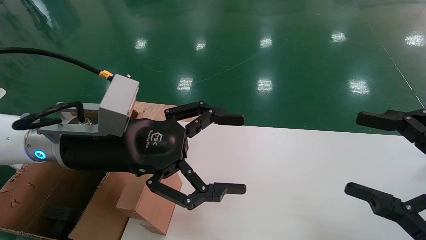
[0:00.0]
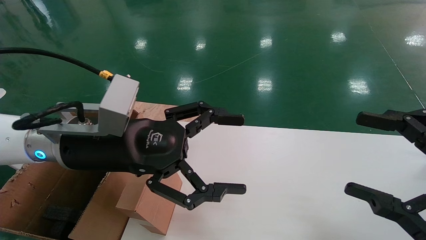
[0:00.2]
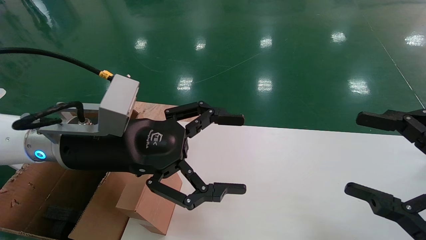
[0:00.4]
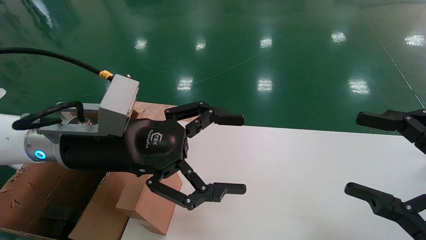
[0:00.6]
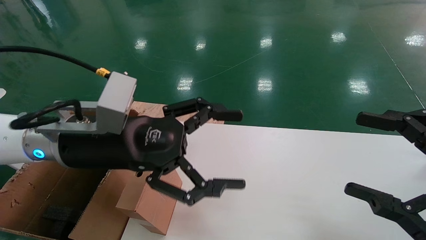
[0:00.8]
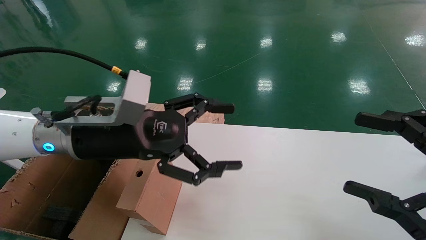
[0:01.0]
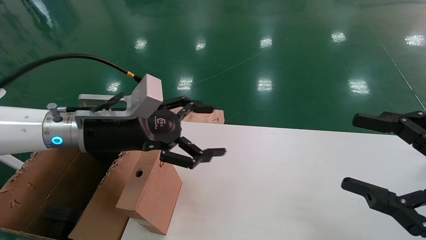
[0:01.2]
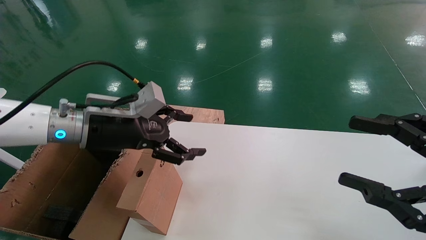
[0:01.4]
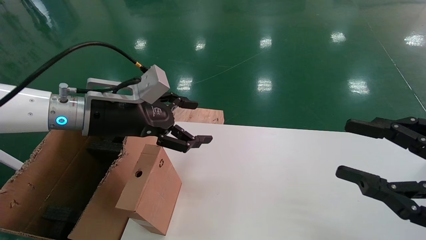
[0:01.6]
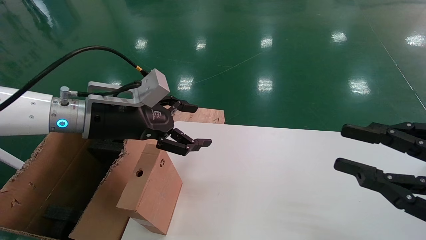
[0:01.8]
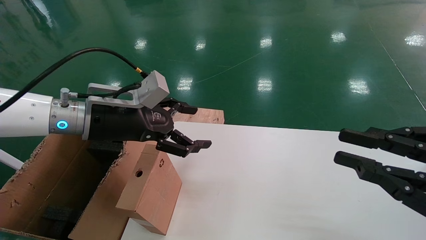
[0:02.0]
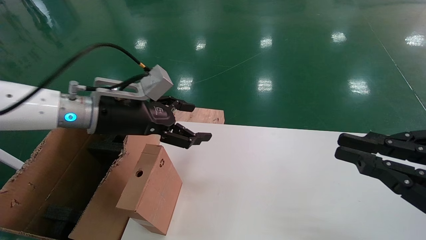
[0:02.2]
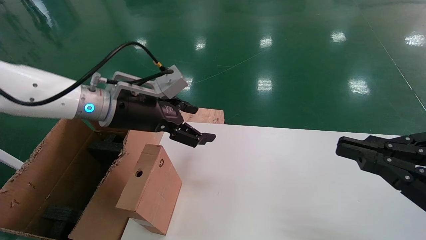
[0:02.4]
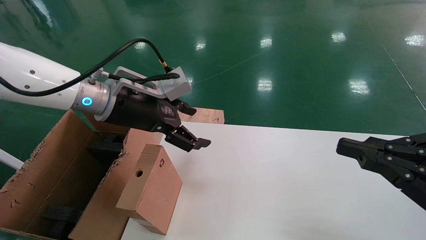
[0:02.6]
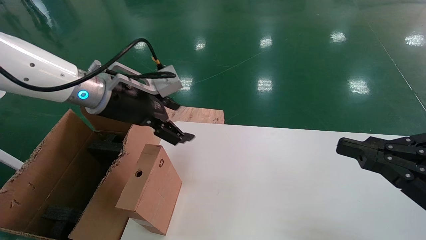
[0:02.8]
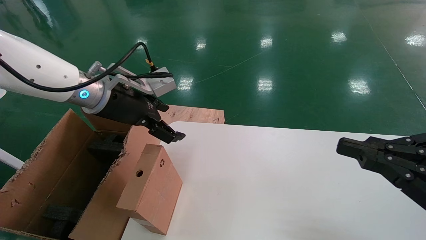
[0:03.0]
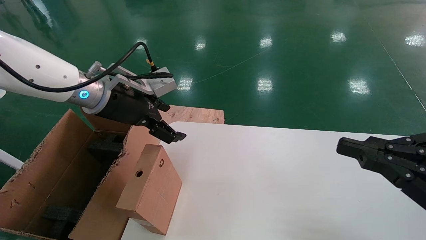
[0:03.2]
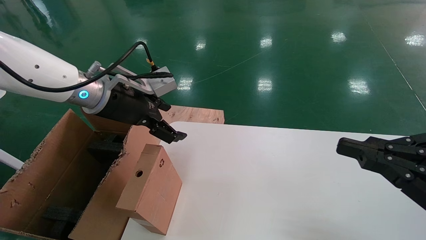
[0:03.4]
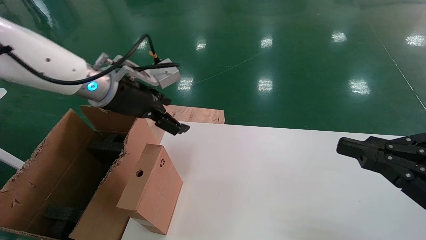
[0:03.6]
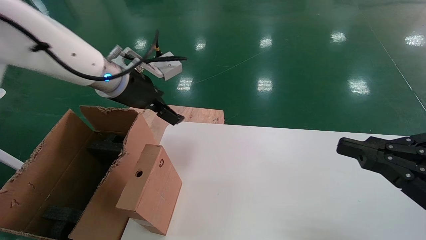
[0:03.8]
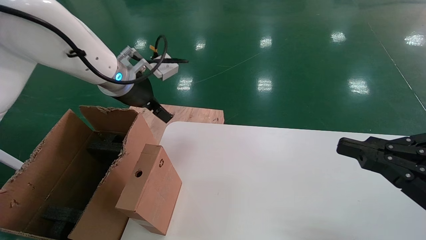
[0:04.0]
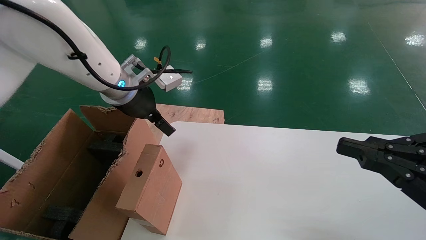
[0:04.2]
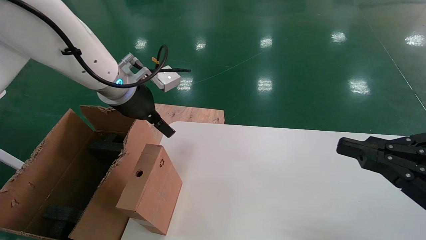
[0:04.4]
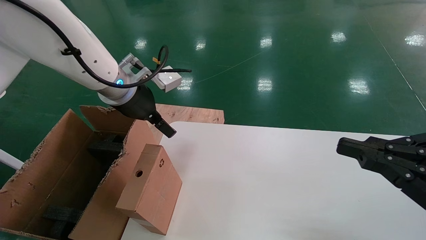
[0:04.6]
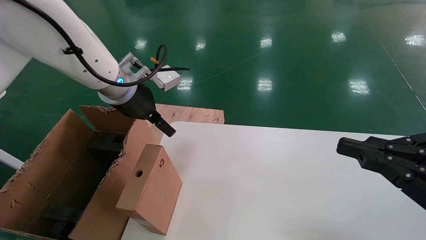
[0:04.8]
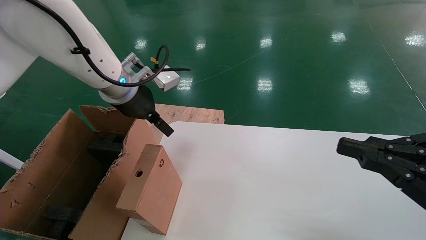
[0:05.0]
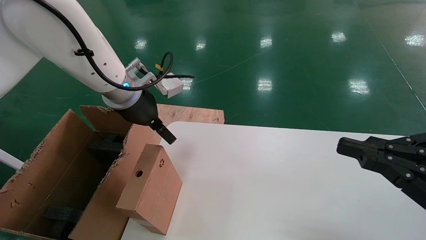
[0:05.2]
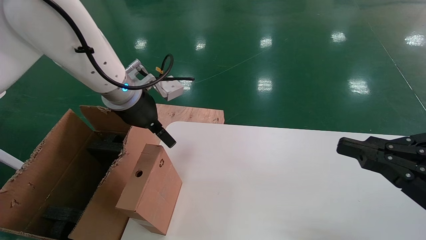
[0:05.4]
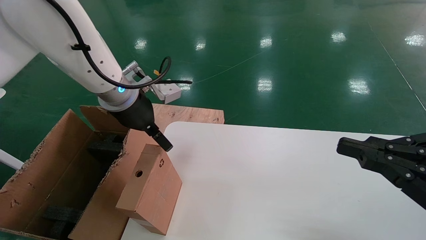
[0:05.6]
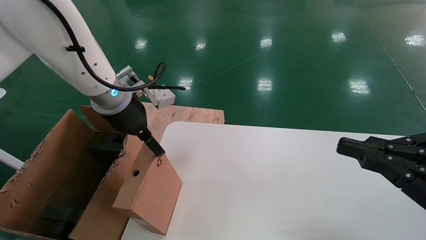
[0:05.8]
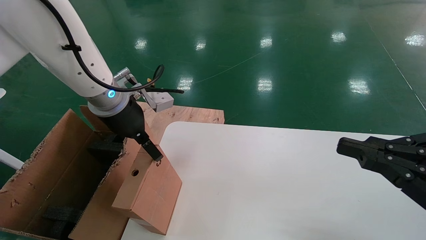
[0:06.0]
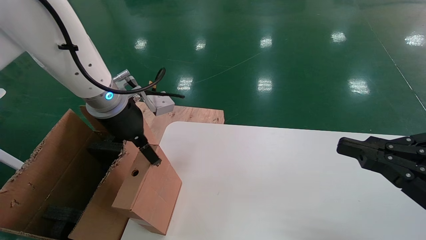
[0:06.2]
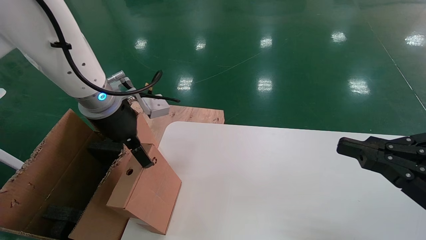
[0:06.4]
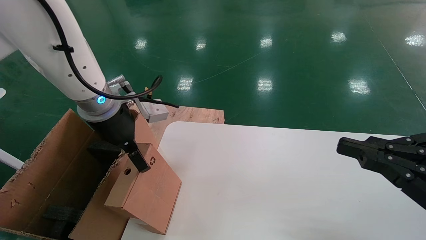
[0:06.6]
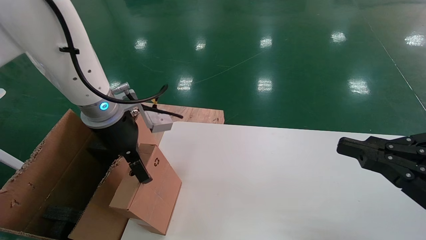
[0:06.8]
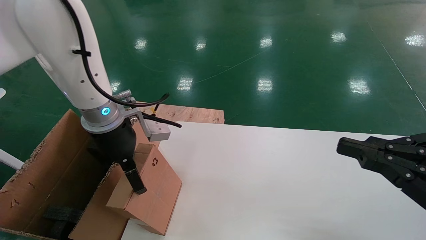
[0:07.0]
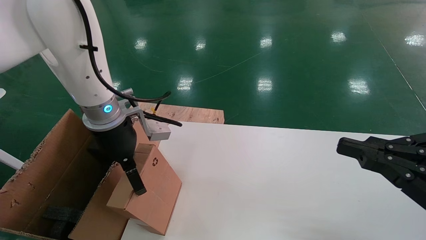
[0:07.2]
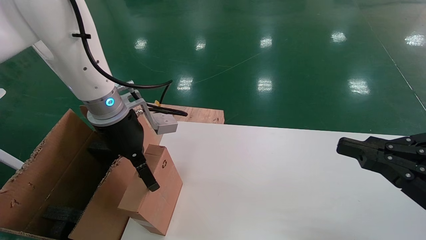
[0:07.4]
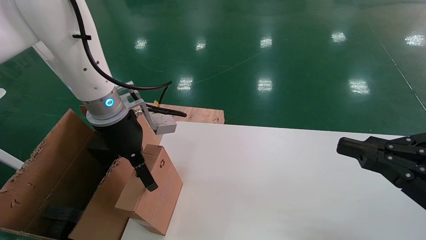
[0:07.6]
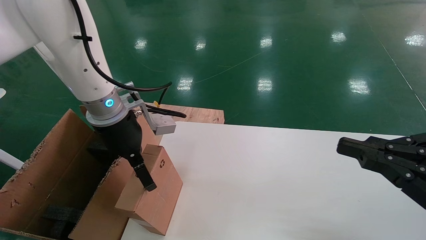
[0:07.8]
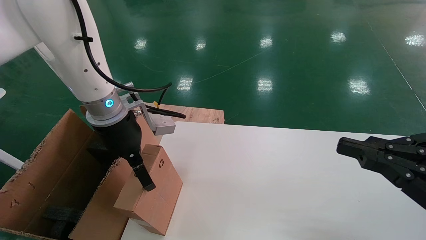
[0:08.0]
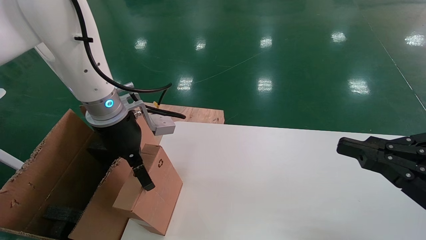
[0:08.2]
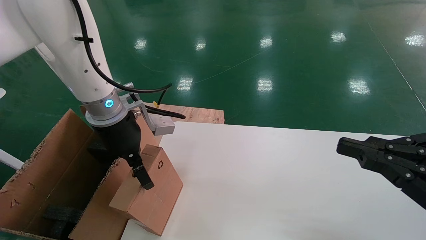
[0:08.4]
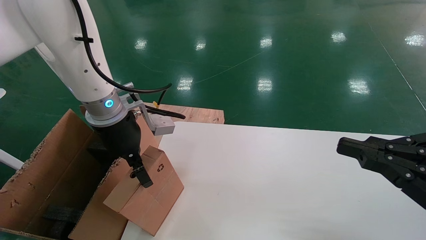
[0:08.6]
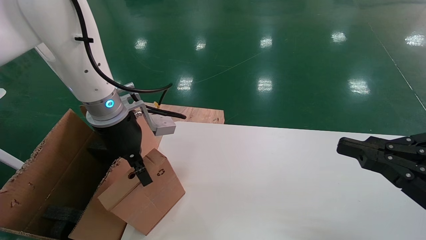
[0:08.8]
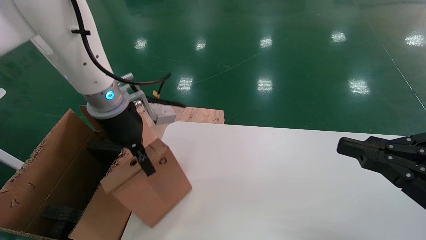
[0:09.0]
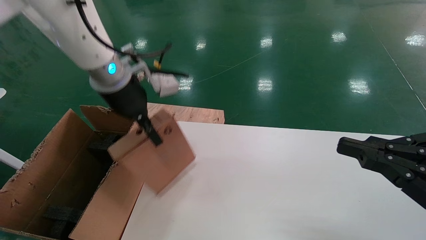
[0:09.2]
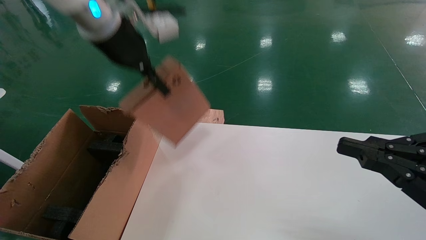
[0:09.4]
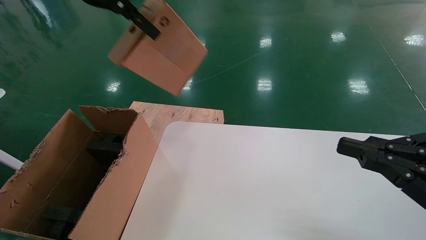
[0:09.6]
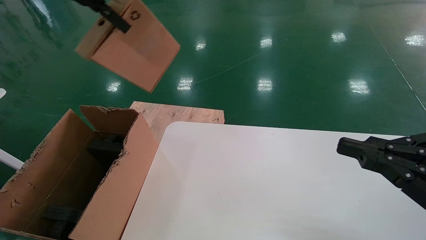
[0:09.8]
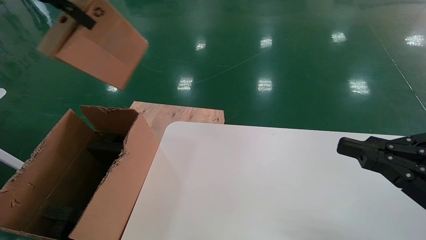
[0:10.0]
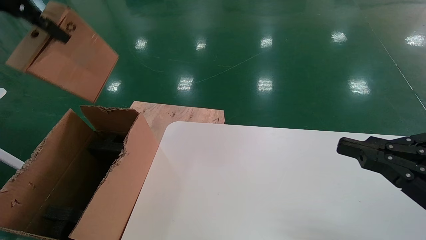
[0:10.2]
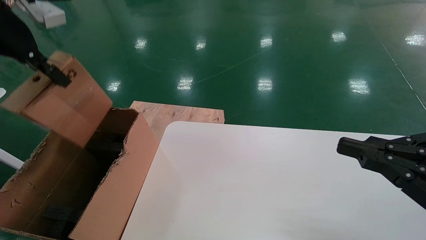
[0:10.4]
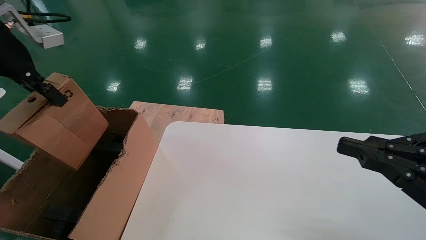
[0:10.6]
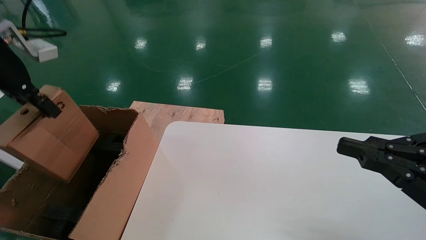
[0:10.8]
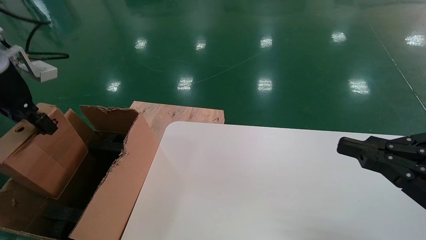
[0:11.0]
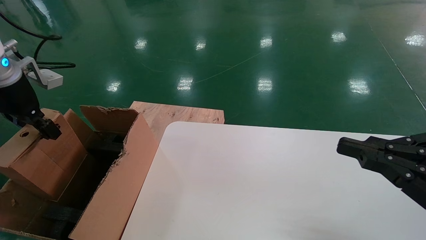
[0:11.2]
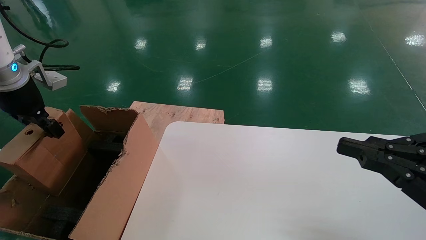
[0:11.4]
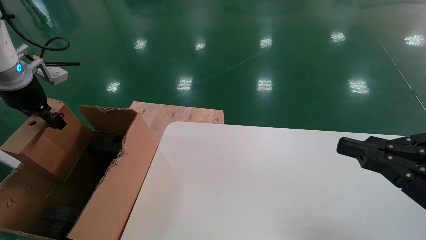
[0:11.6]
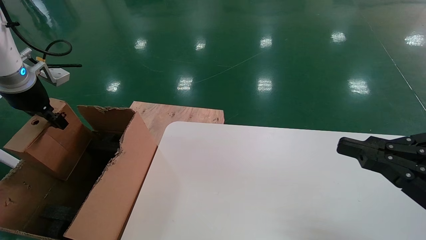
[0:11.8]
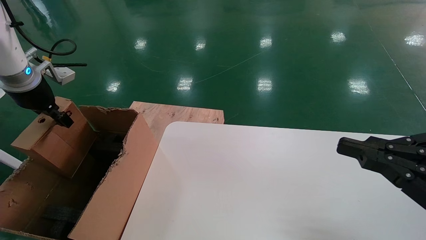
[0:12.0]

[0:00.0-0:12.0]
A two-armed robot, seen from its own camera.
Task of the whole recording: place the small box on the table into the large box on the left.
Step, 0:01.2 to 0:09.2: Pick up the mouse and the power cord paper box.
0:00.0 to 0:01.6: The left gripper heads forward, covering roughly 5 cm.
0:01.6 to 0:03.0: The right gripper closes.
0:04.4 to 0:06.0: The grippers stay close to where they were, moving slightly.
0:06.0 to 0:07.6: The grippers make only small movements.
0:07.6 to 0:09.0: The left gripper closes its fingers.
0:09.0 to 0:10.4: The left gripper heads to the left and upward, covering approximately 25 cm.
0:10.4 to 0:12.0: The left gripper moves downward, forward and to the left, about 15 cm.

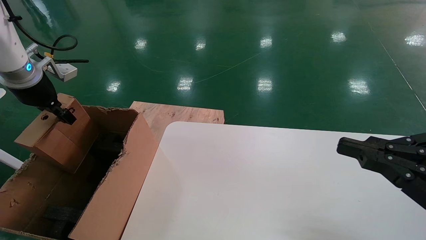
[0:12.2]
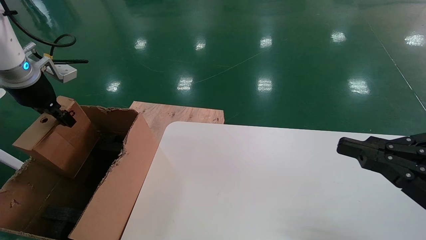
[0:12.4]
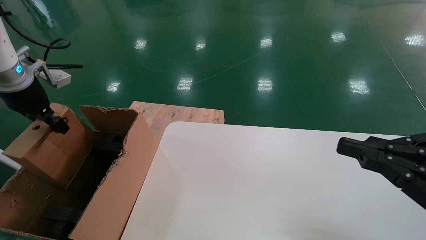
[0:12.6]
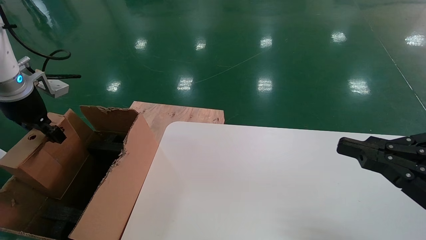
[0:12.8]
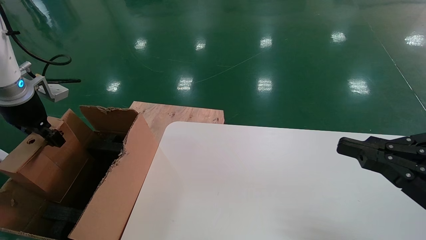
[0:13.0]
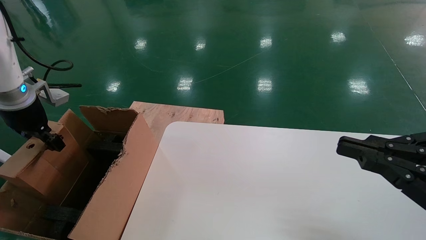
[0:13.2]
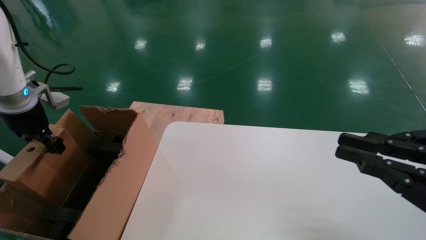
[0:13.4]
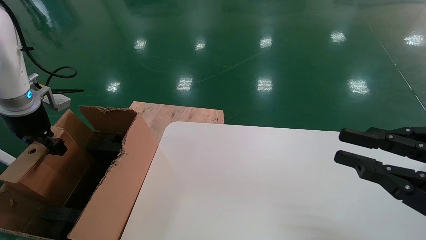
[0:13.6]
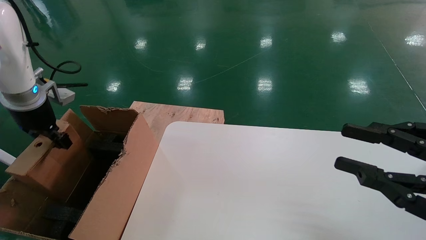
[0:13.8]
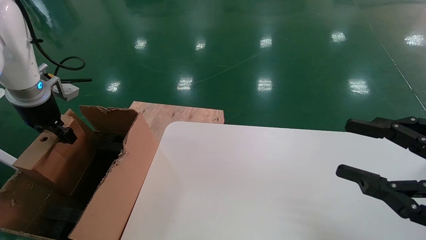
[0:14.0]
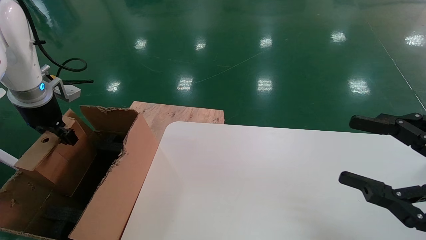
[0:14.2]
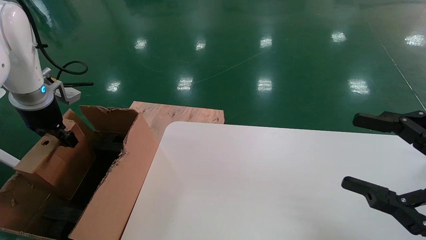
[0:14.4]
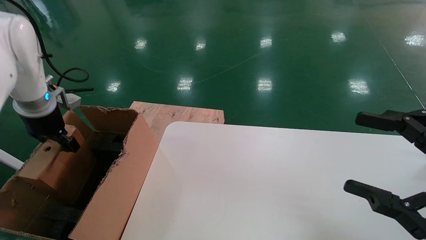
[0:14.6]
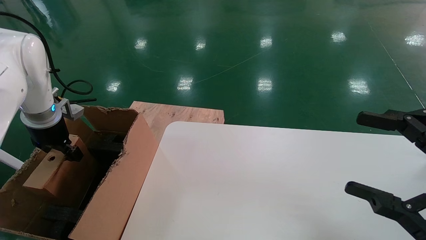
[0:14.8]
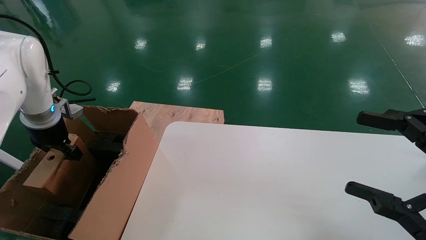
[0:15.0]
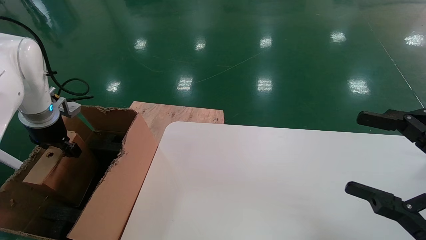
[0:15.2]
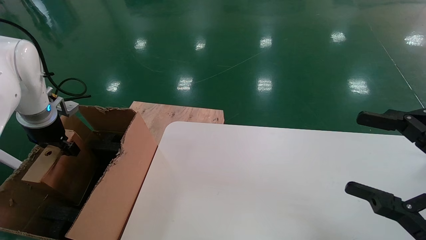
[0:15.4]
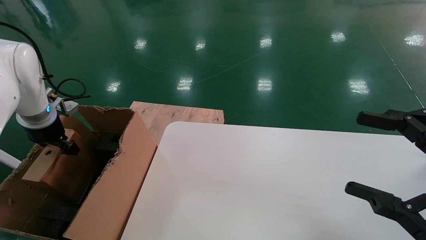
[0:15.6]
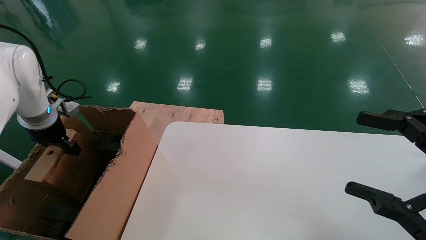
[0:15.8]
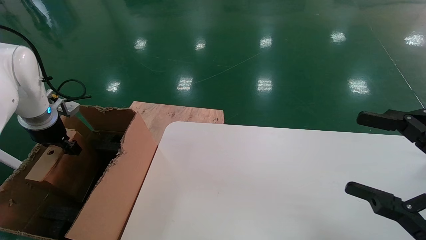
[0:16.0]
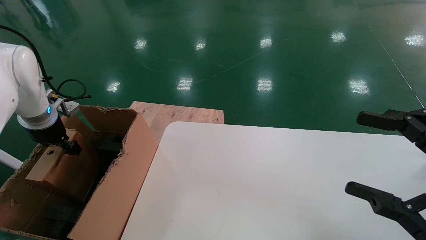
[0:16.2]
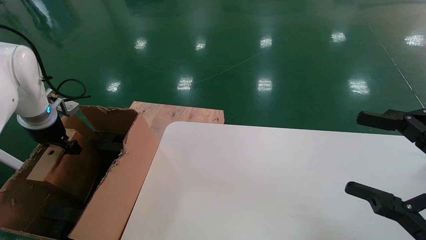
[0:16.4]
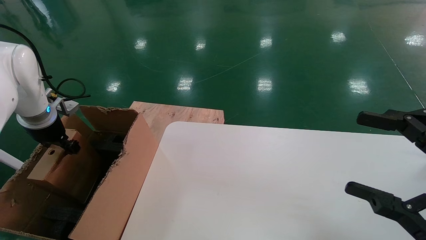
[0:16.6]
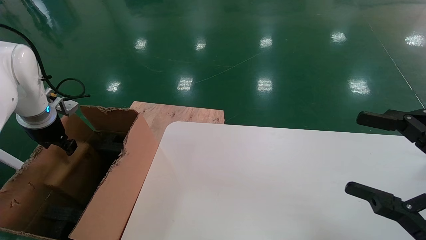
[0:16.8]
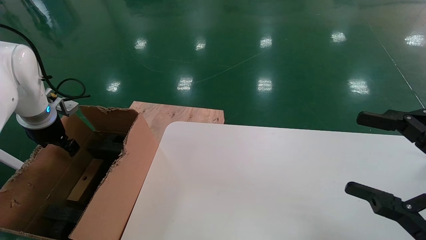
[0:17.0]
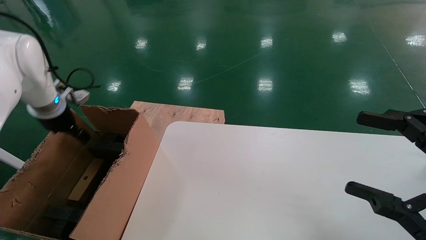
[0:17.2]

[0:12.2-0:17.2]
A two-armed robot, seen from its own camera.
Task of the whole recording: place the small box on the table into the large box on the left.
Step, 0:12.2 to 0:17.0: Place the mouse and the power cord paper box into the container.
0:12.2 to 0:13.8: The grippers move only a little.
0:13.8 to 0:15.6: The right gripper opens. The left gripper travels downward by roughly 5 cm.
0:15.6 to 0:17.2: The left gripper moves approximately 5 cm, and opens.
